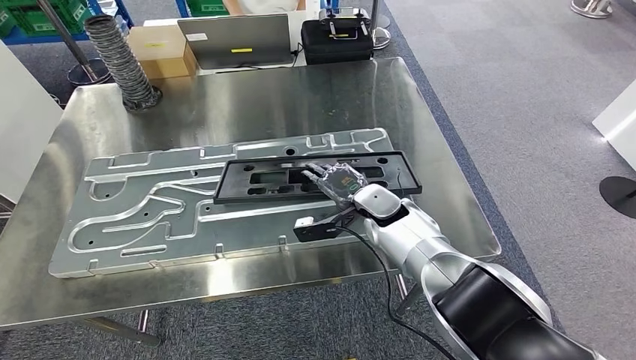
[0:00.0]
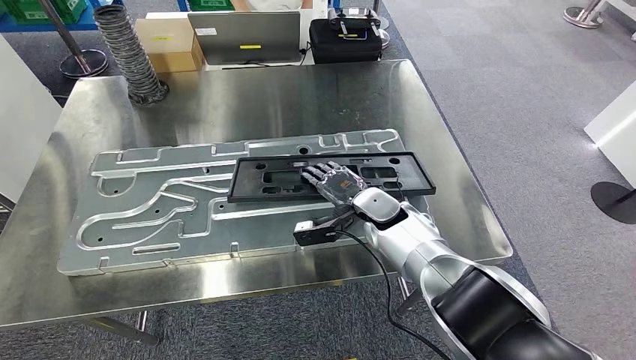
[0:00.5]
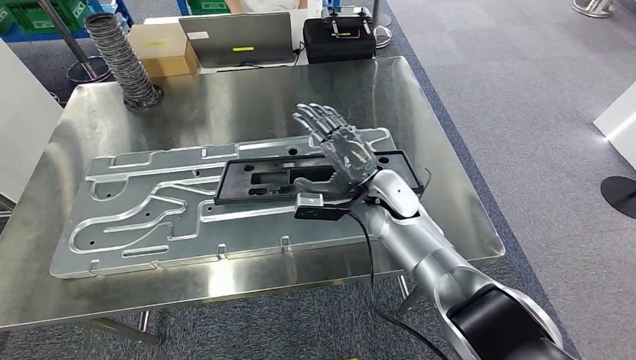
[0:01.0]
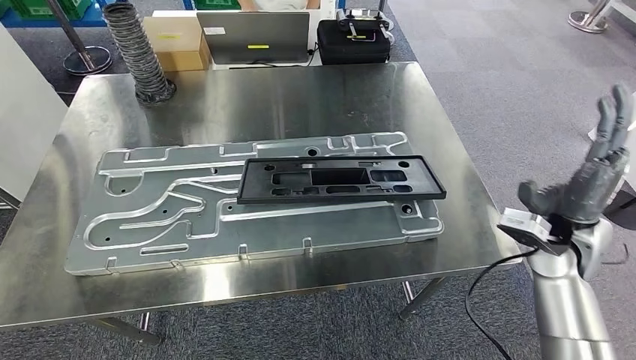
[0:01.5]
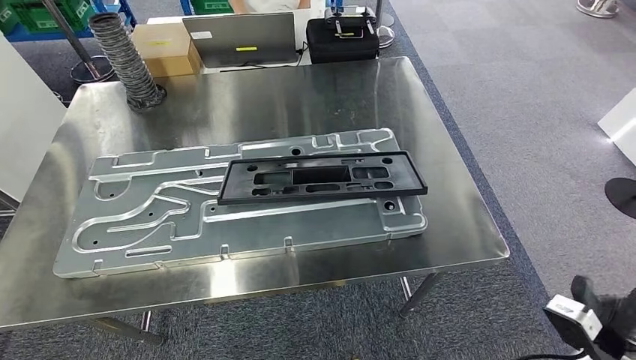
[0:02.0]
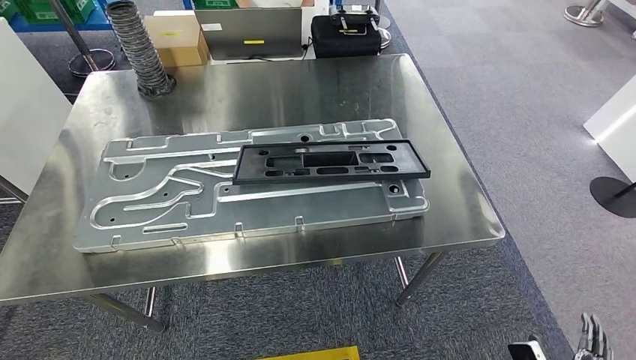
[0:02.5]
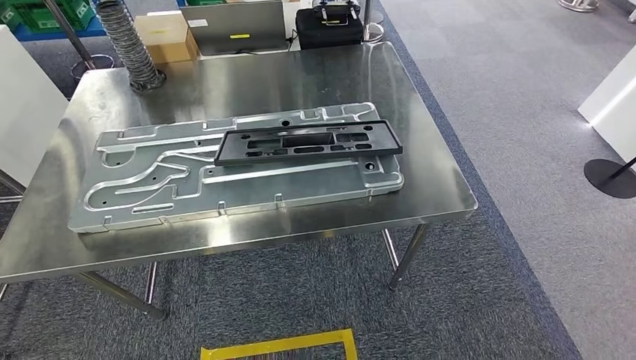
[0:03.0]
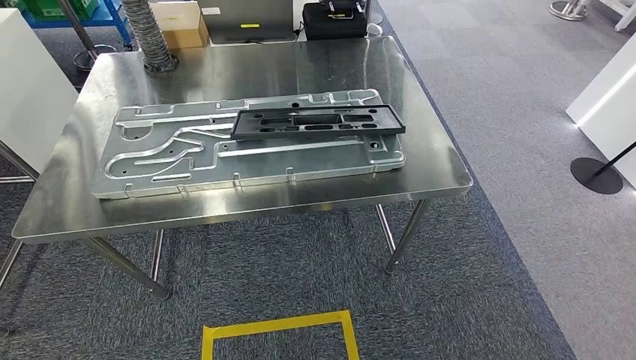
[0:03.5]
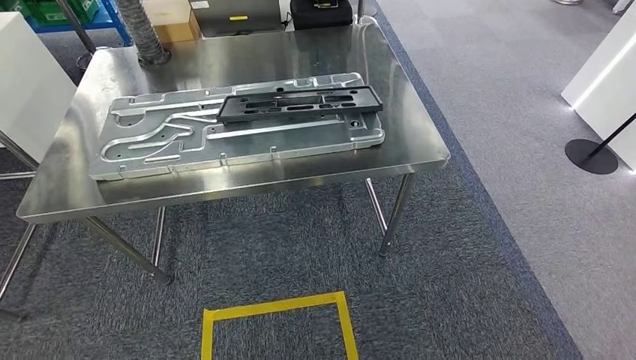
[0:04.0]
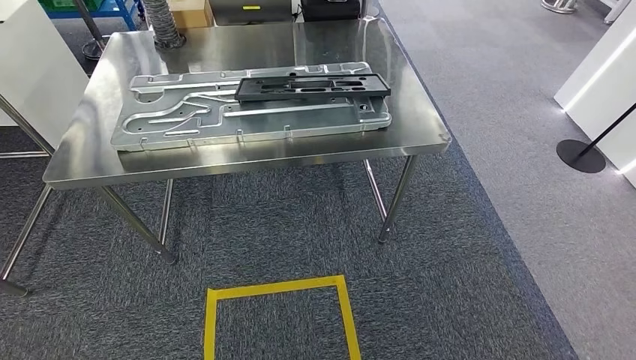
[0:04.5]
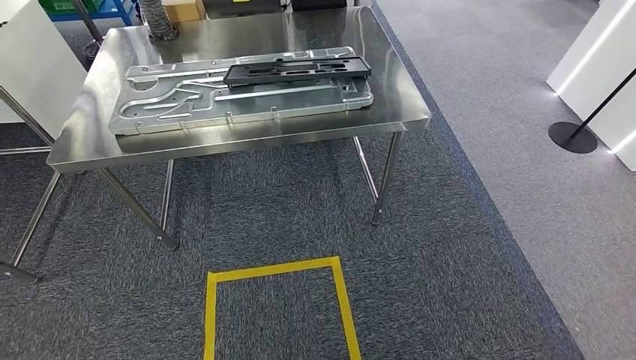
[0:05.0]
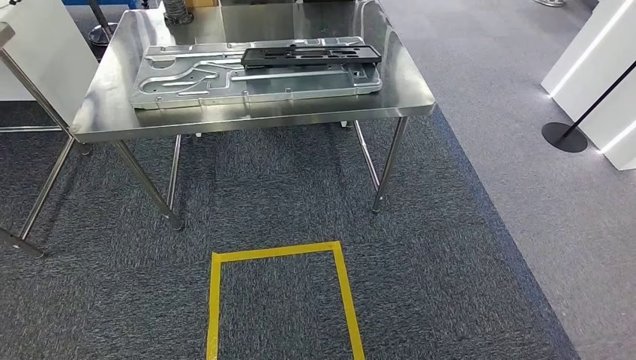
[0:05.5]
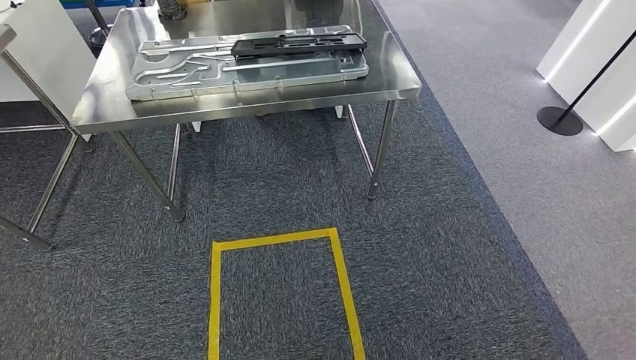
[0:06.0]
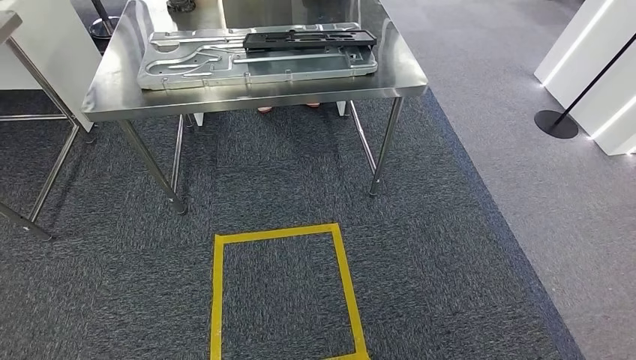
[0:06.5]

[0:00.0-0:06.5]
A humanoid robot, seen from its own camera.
Step, 0:03.0 to 0:06.5: Move to the initial position of the shelf.
